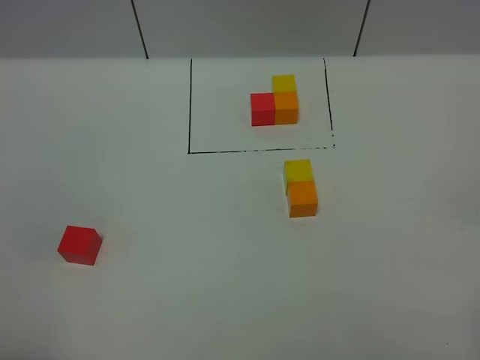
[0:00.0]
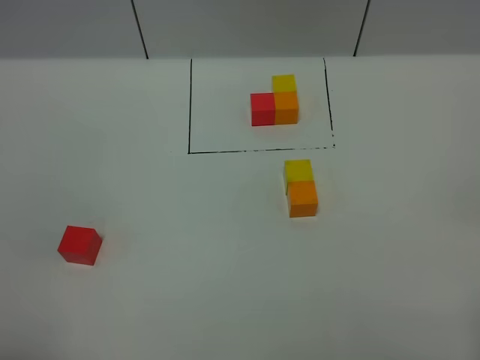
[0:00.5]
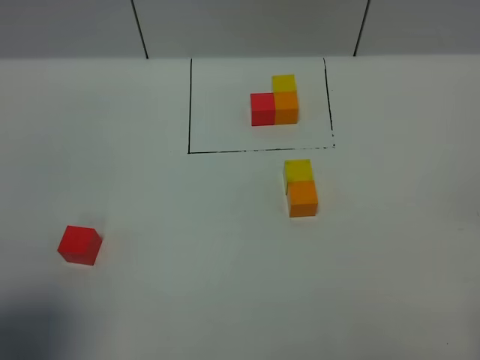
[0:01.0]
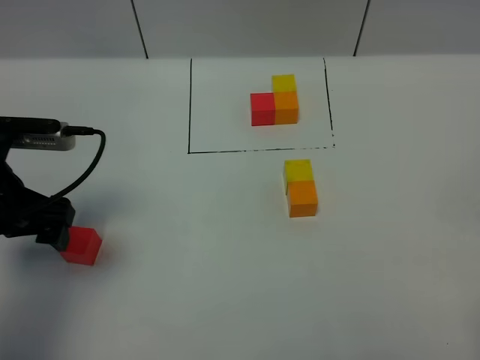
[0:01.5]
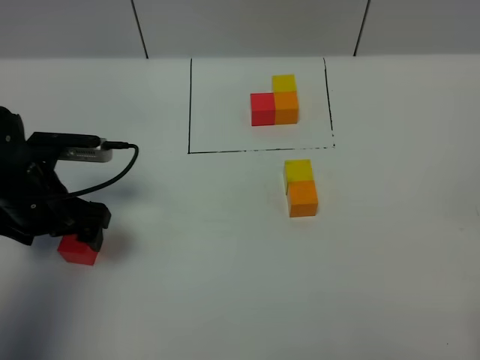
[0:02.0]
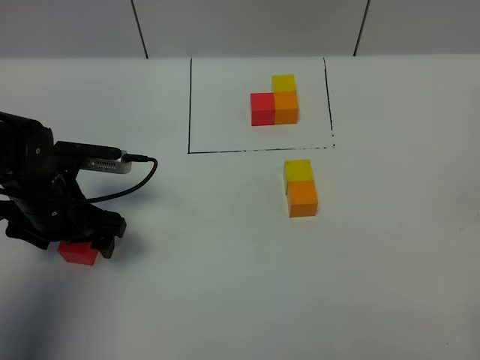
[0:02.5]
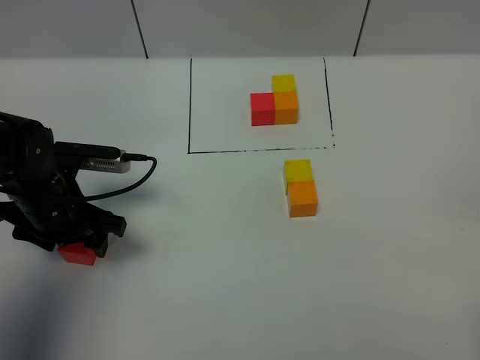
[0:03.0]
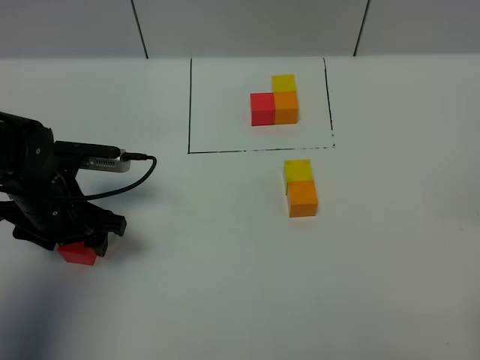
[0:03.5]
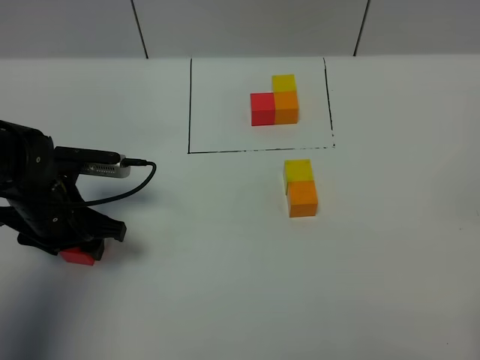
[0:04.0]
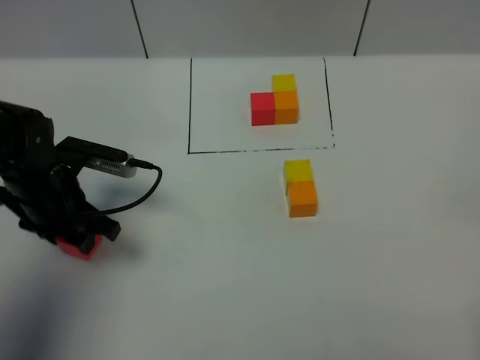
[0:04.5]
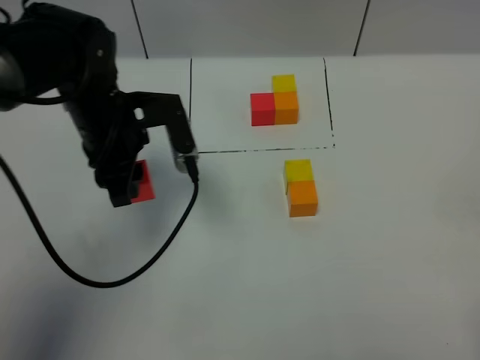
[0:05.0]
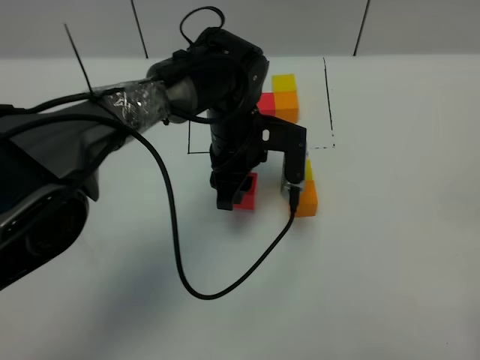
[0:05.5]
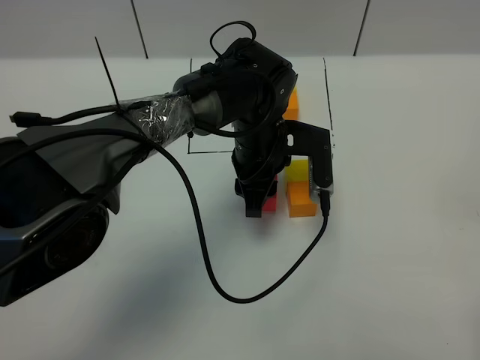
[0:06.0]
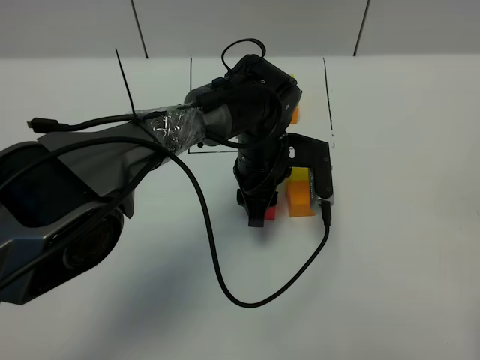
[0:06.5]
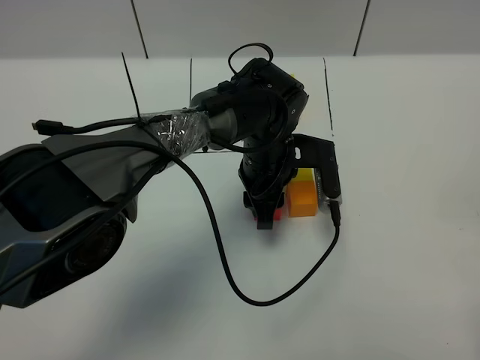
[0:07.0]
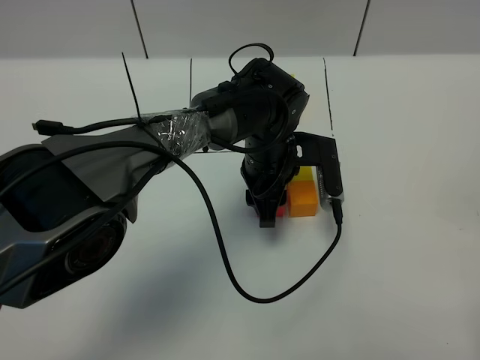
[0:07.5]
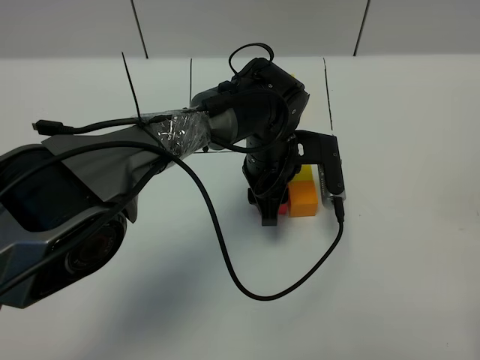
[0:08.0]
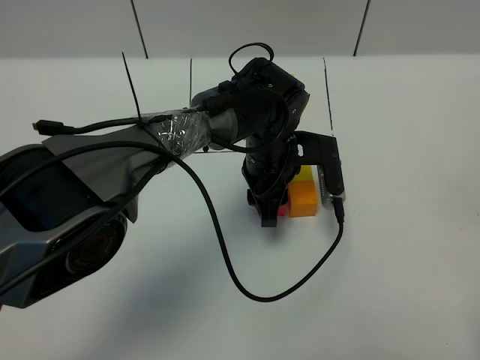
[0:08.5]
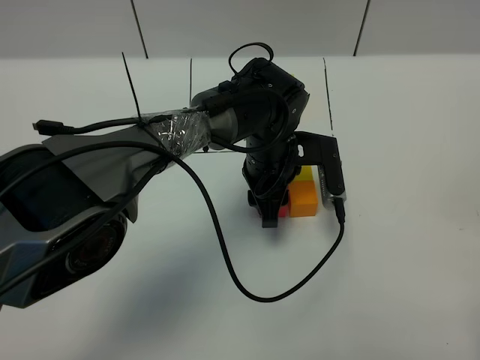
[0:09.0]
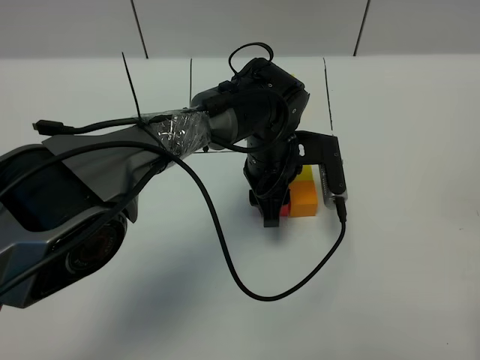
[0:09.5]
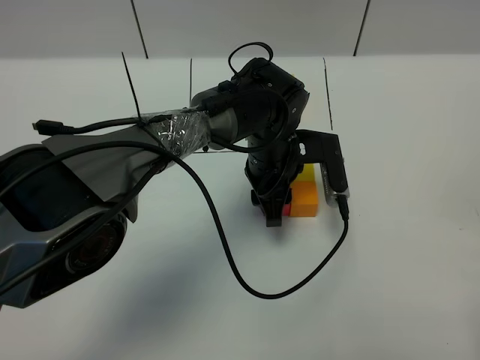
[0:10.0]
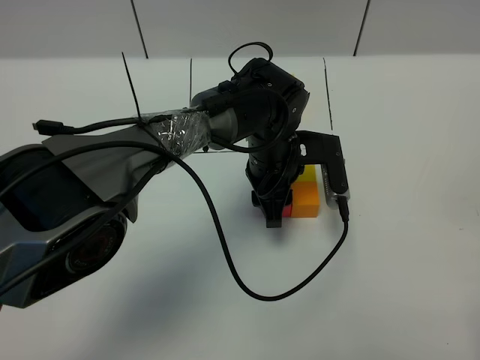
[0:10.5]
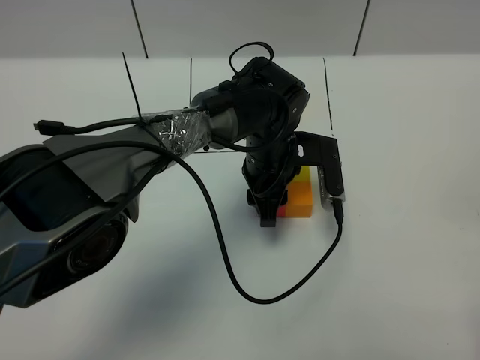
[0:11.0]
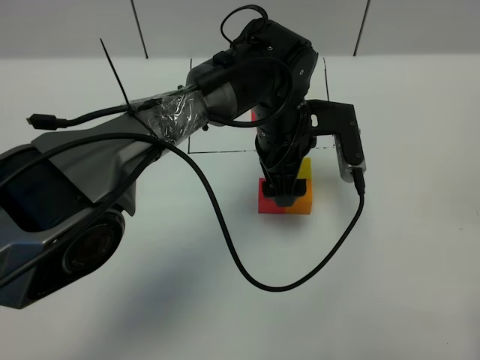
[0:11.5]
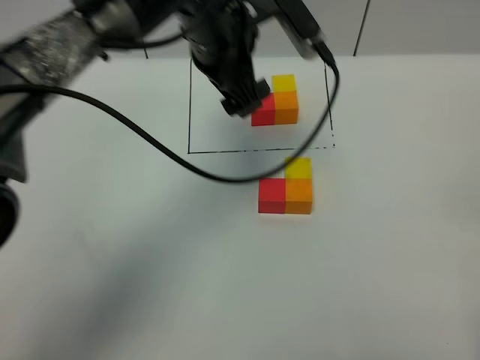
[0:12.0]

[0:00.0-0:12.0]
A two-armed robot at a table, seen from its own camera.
Task of the whole recording: According to the building block template in front, assemble the scattered blocks together.
Step, 0:00.0 to 0:11.0: Put the red build block on the left of the ornage build block.
0:00.0 to 0:02.0: The left gripper moves forward and downward, approximately 30 cm.
0:02.0 to 0:04.0: The left gripper closes.
0:04.0 to 0:06.0: The left gripper shifts approximately 25 cm to the right.
0:06.0 to 0:08.0: The grippers stay close to where they were, moving slightly.
0:08.0 to 0:10.0: The two grippers keep their place.
0:10.0 to 0:12.0: The left gripper heads upward and to the left, covering approximately 20 cm, and opens up.

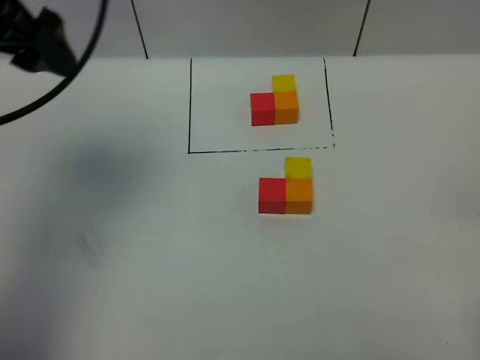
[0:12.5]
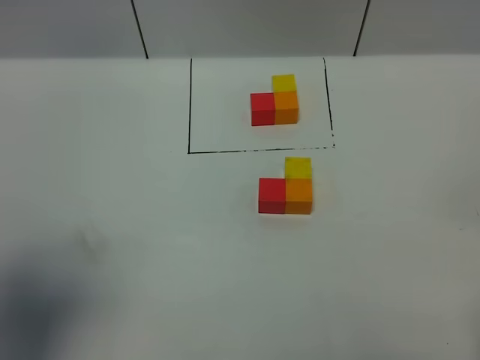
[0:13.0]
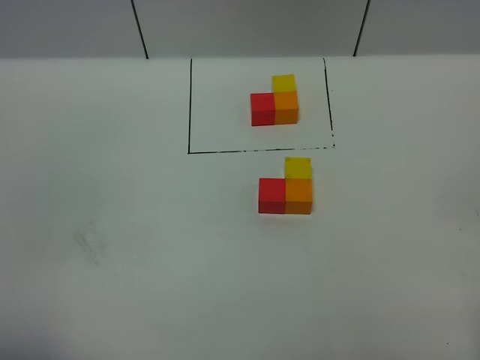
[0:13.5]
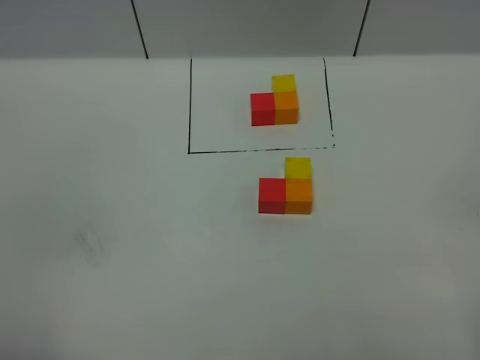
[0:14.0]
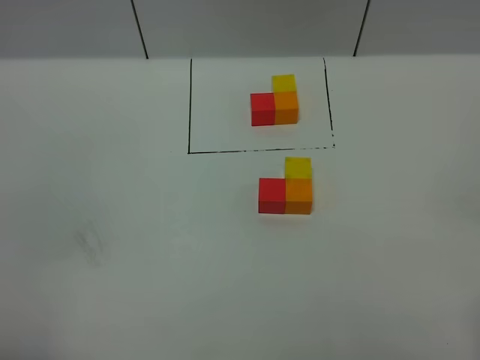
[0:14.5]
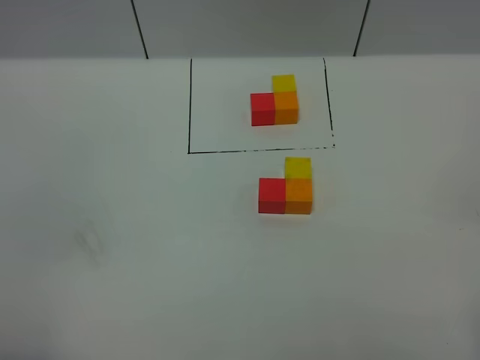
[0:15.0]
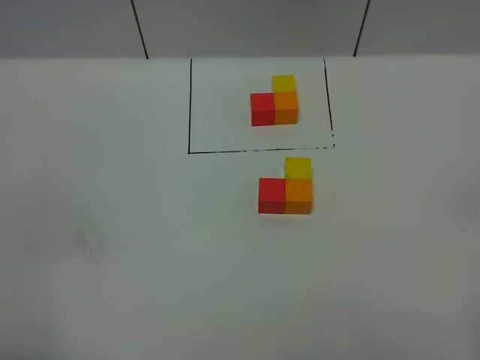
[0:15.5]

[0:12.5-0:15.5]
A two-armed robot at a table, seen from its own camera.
Task of the whole recording: According to the building block template in front, assemble the scattered blocks together.
0:12.5 to 0:14.0: The left gripper heads backward, covering some 30 cm.
0:14.0 to 0:15.5: Neither gripper changes place.

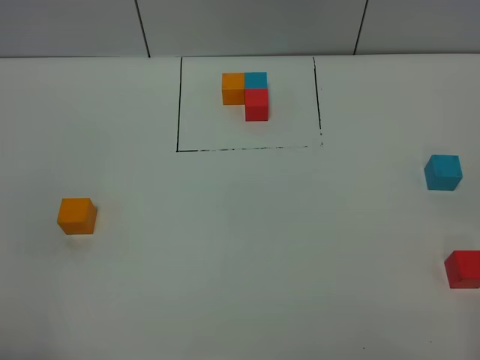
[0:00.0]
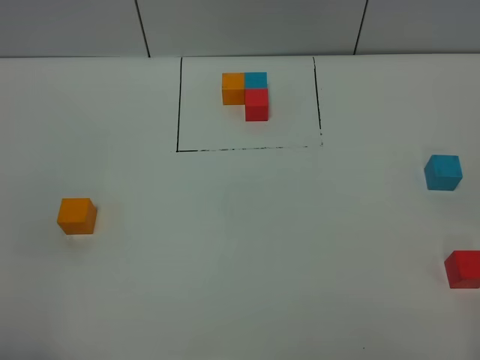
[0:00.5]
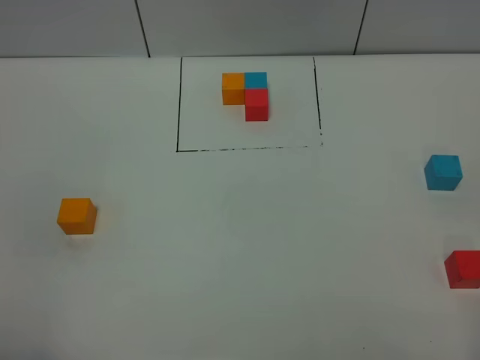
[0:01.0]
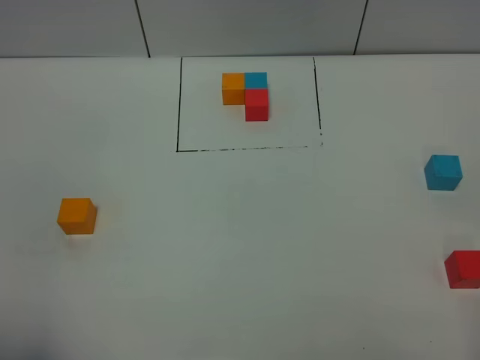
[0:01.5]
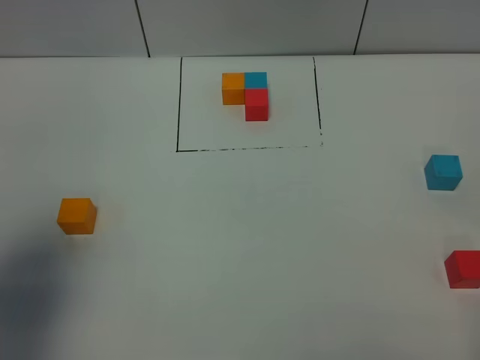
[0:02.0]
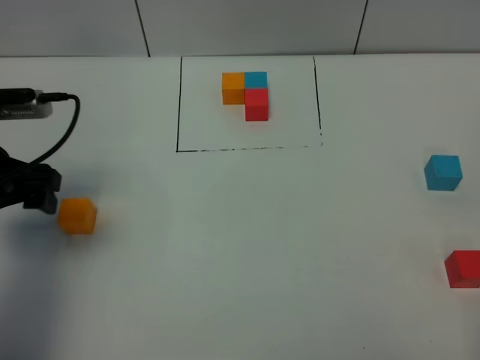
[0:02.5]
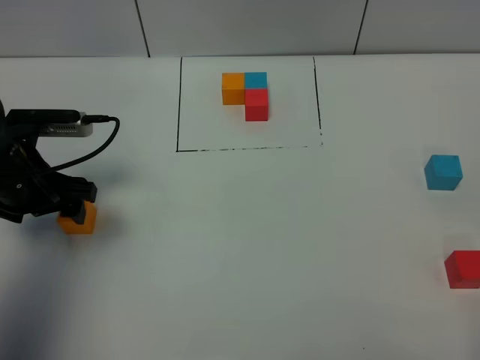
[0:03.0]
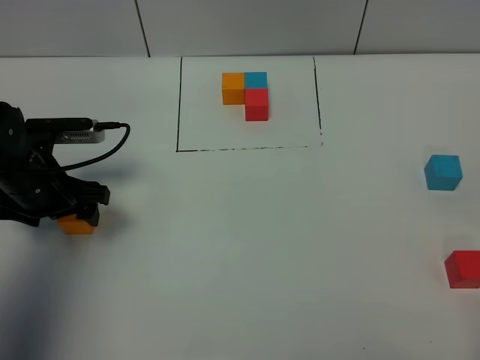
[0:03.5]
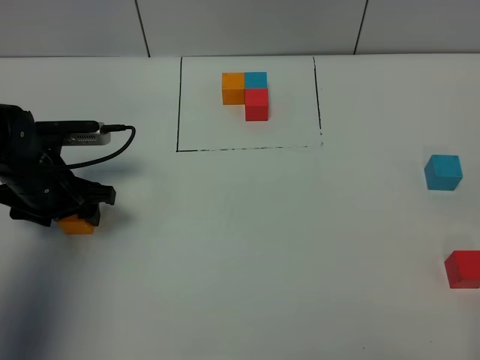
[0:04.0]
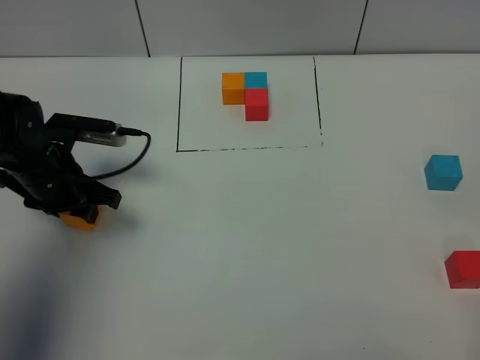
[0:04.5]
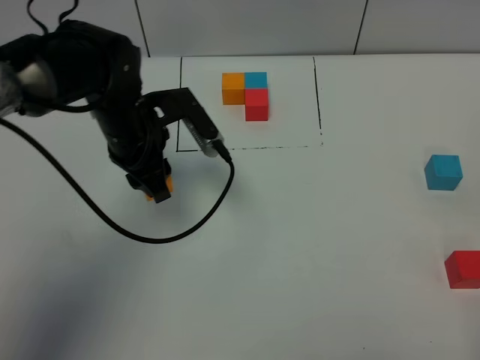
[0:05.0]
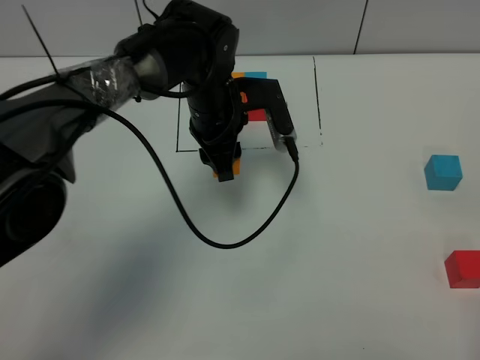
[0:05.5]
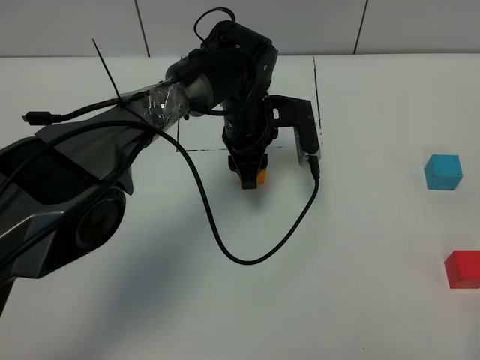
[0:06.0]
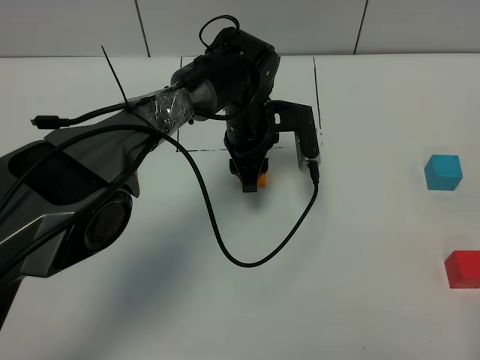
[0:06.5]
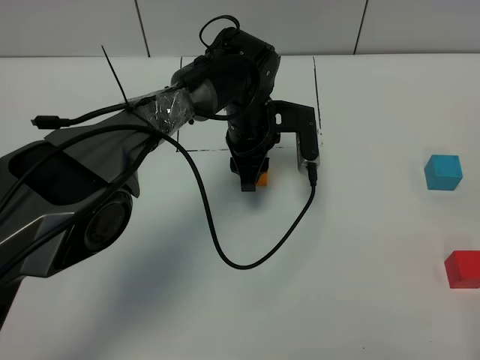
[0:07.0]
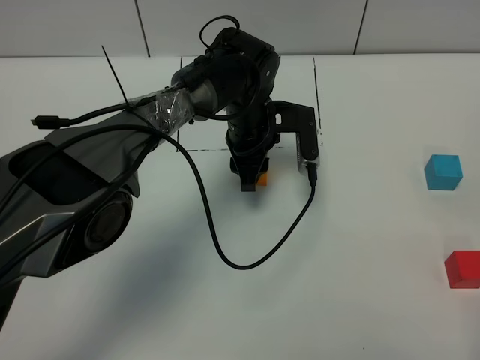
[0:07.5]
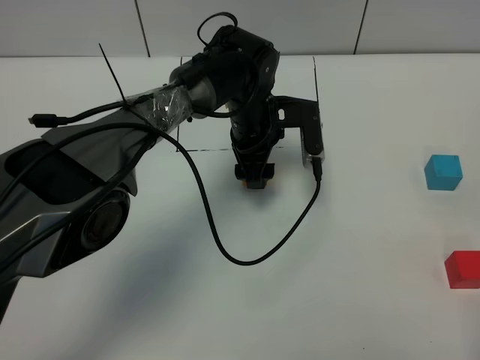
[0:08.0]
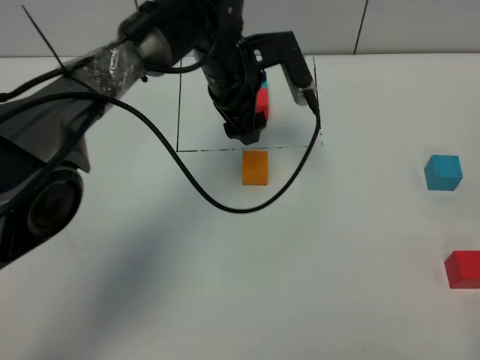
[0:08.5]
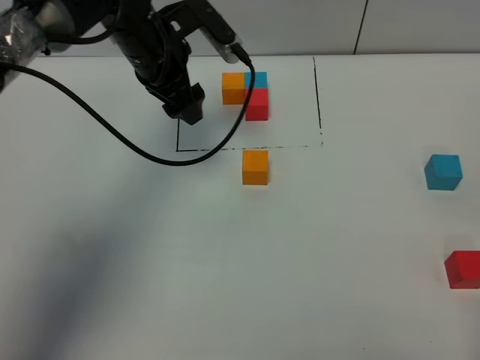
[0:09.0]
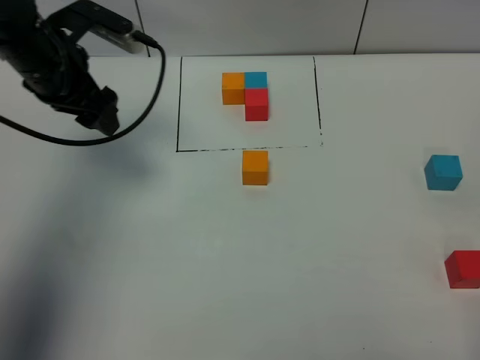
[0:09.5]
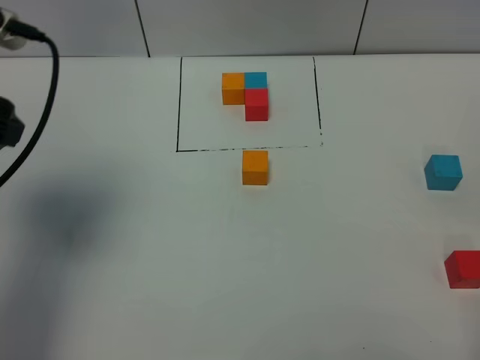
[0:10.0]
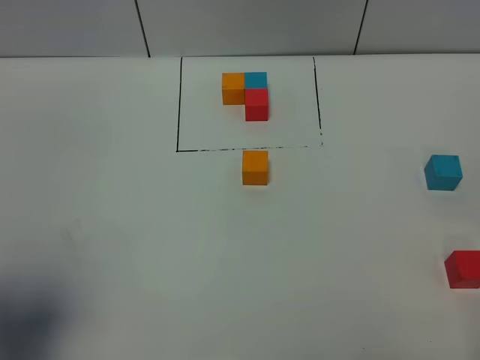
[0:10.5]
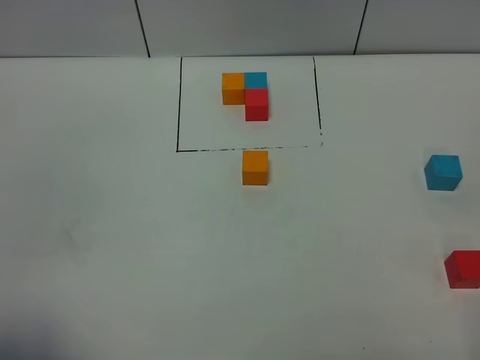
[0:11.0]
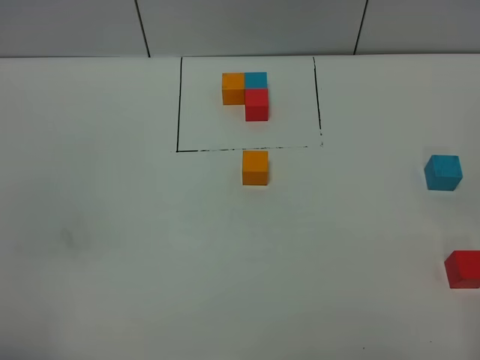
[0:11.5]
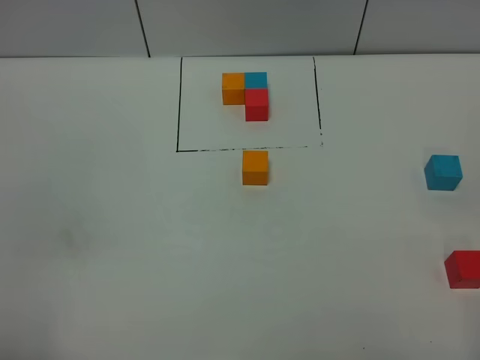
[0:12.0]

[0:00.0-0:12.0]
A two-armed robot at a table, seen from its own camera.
Task of the whole recording: According to the building block template in front, assemble the scattered blocks together.
Step, 0:00.0 to 0:07.5: Put the orange build block in the center of the table.
0:00.0 to 0:02.0: The left gripper goes about 20 cm forward.
0:02.0 to 0:04.0: The left gripper shifts about 20 cm downward and forward, and closes its fingers.
0:04.0 to 0:06.0: The left gripper moves to the right, about 25 cm, and closes its fingers.
0:06.0 to 0:08.0: The left gripper opens.
0:08.0 to 0:10.0: The left gripper heads to the left, upward and backward, covering approximately 40 cm.
0:10.0 to 0:12.0: The left gripper is displaced backward by some 25 cm.
